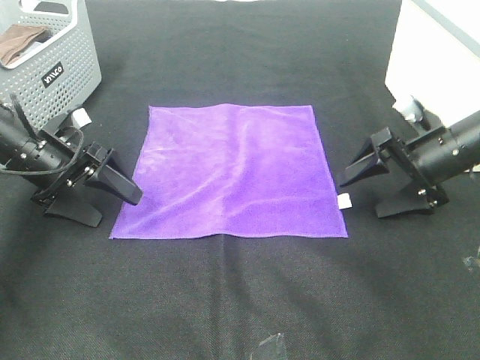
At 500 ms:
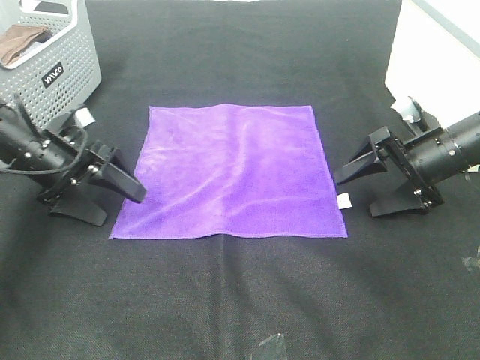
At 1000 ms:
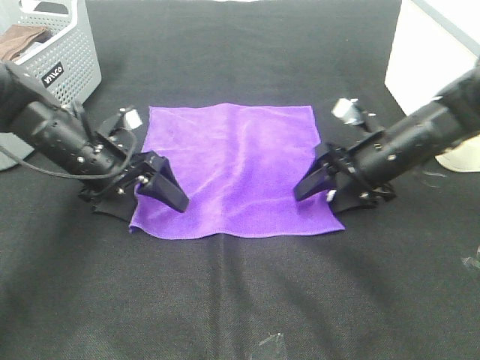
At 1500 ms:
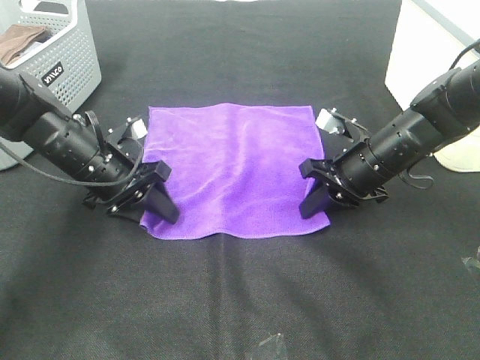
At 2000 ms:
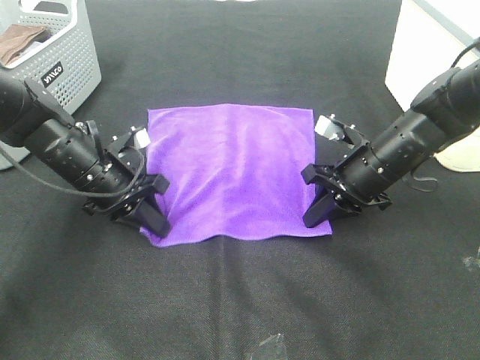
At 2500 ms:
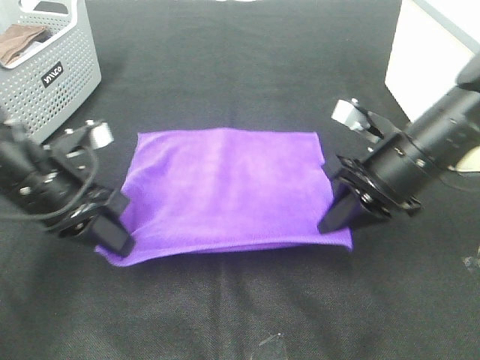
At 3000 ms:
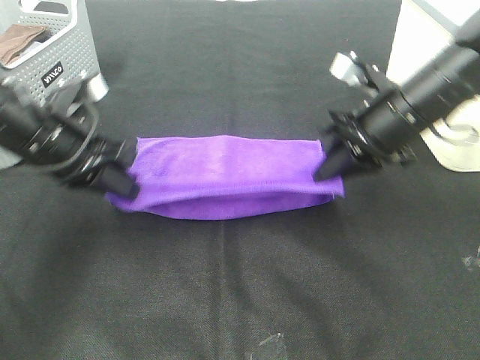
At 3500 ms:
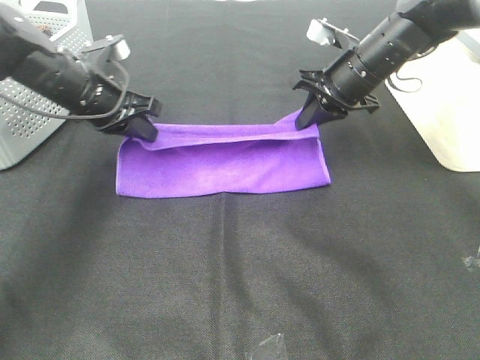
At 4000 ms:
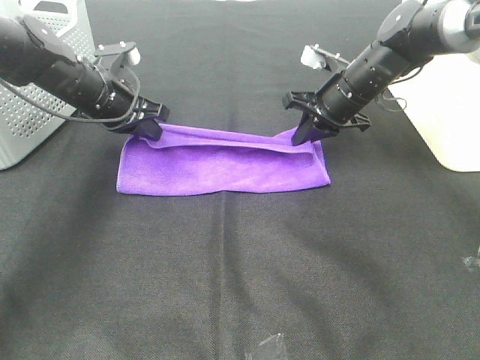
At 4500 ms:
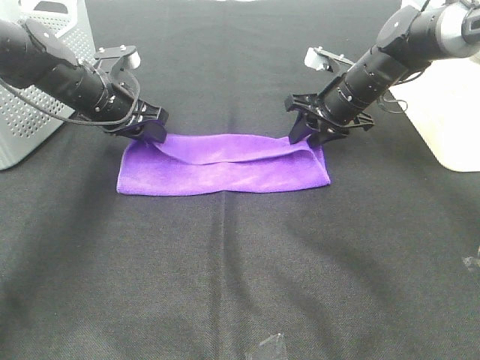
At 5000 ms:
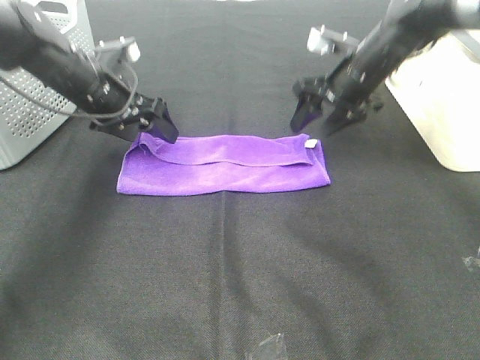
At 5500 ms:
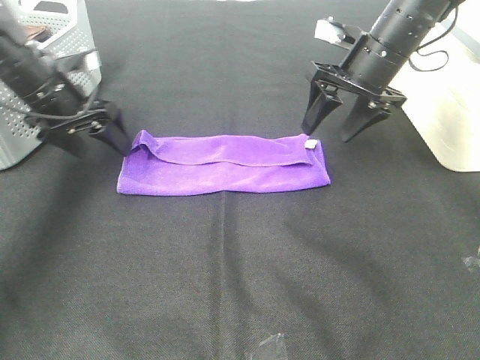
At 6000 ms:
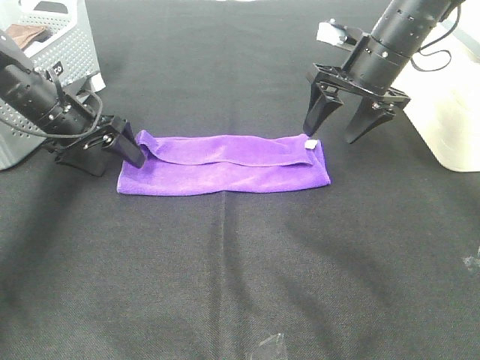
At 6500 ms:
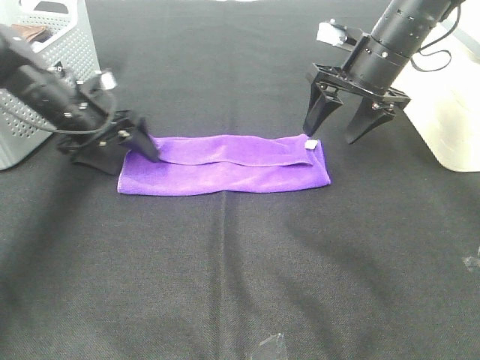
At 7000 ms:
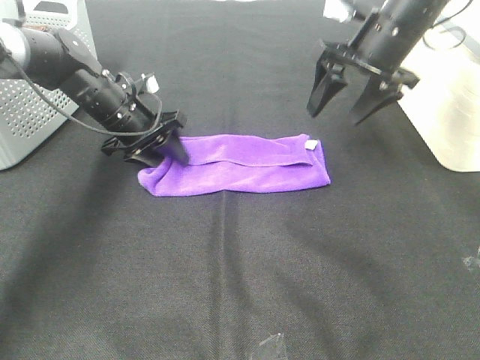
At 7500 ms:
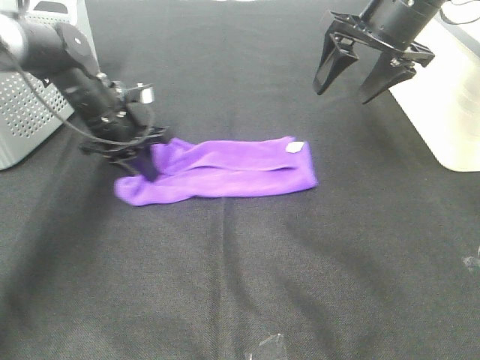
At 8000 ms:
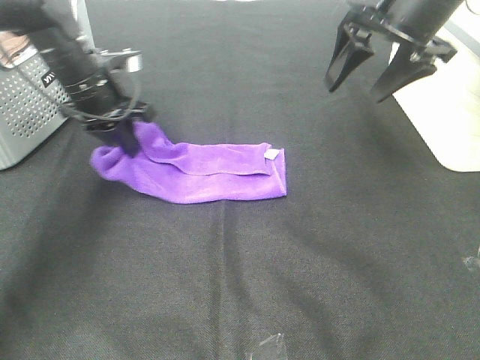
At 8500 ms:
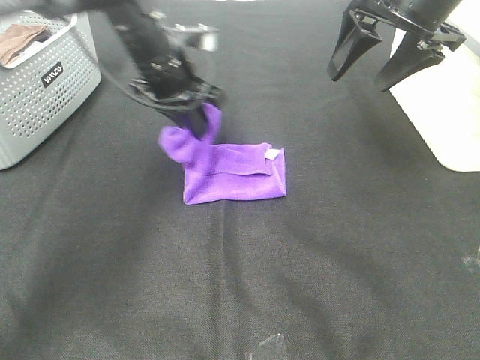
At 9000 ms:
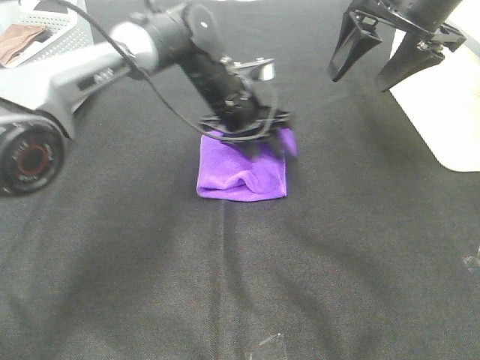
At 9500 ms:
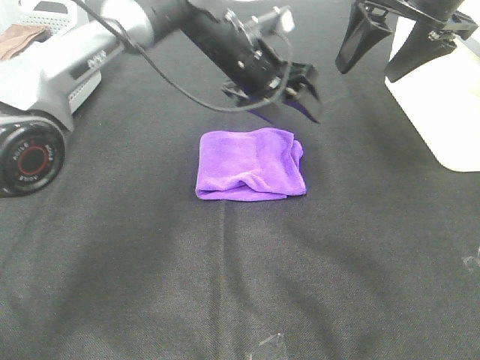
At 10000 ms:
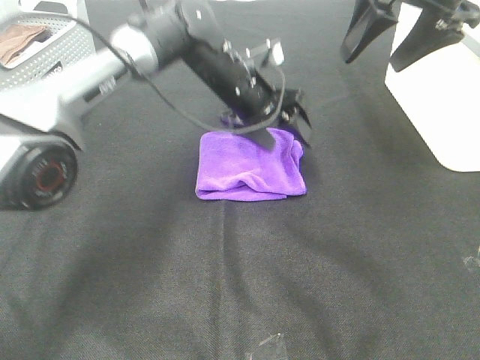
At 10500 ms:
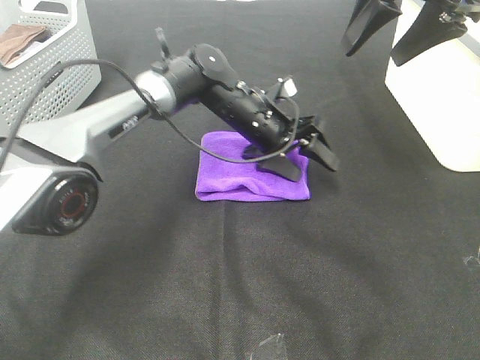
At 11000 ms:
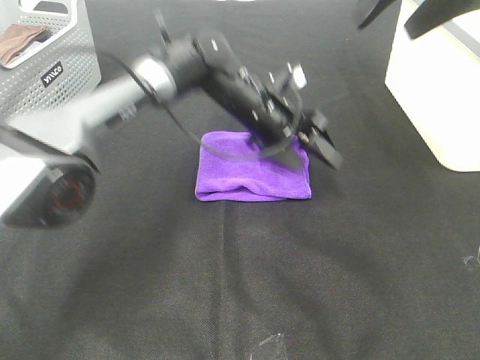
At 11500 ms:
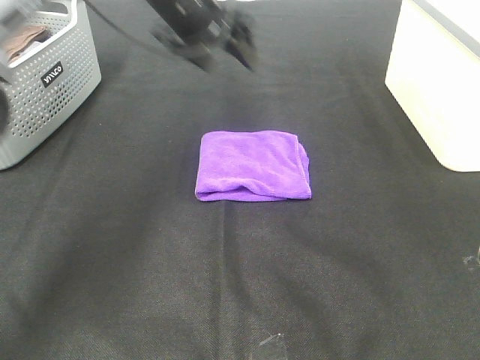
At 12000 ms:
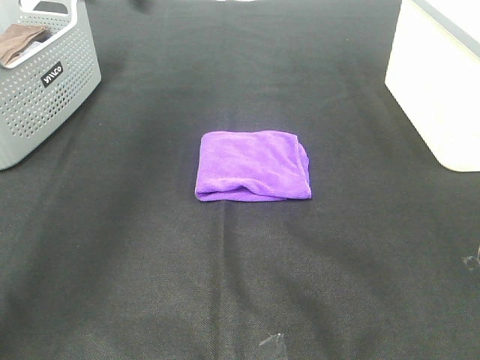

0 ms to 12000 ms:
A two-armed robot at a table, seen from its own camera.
Task of the whole recording: Fold towels.
Step, 2000 ms to 4000 ms: Left hand: fold the purple towel up.
Step, 2000 ms to 4000 ms: Right hand: fold the purple towel up.
Step, 4500 ms to 8500 ms: Left hand: fold the purple towel from left to right.
0 ms to 2000 ms: The left gripper is displaced to the right by some 5 cm, and closes its fingers; the right gripper goes roughly 10 cm to the left, and closes up.
2000 ms to 4000 ms: The two grippers go about 10 cm forward.
4000 ms to 6000 ms: The left gripper is displaced to the left by about 5 cm, and opens up, while the right gripper is displaced upward by some 5 cm, and opens.
6000 ms to 8000 ms: The right gripper travels upward by roughly 10 cm; the left gripper goes some 10 cm to the right and upward, and closes.
8000 ms to 10000 ms: The left gripper travels to the right by approximately 20 cm, and opens up.
10000 ms to 12000 ms: The right gripper shifts roughly 20 cm backward and upward. Meanwhile the left gripper goes some 30 cm upward and to the left.

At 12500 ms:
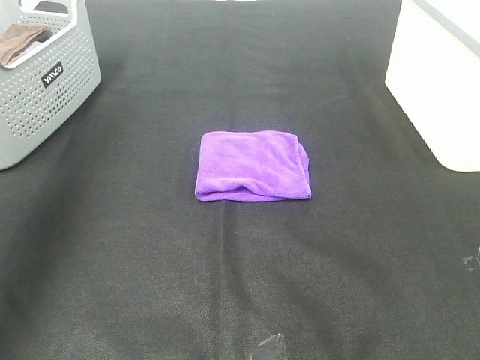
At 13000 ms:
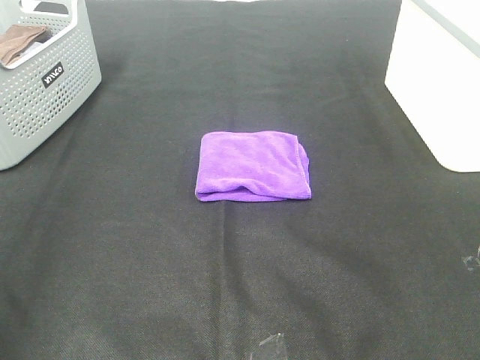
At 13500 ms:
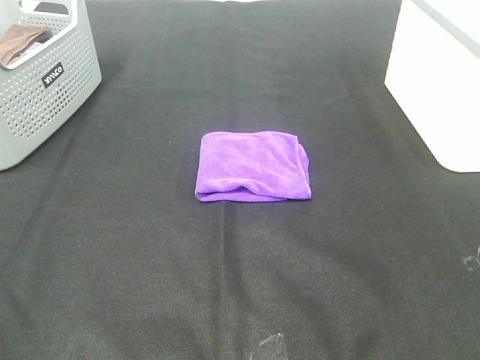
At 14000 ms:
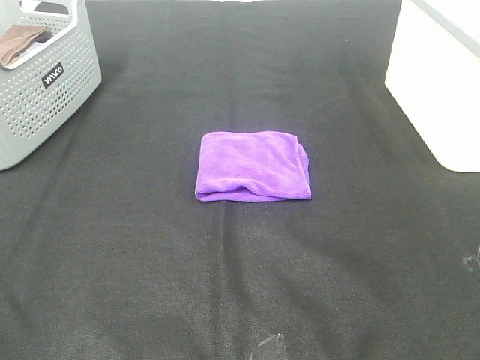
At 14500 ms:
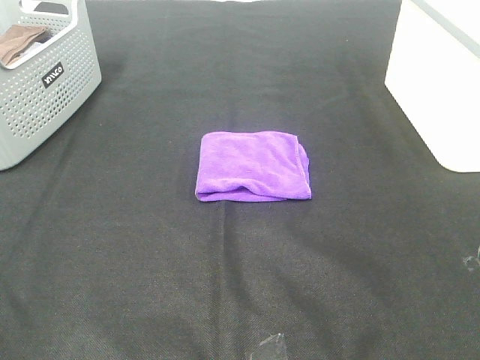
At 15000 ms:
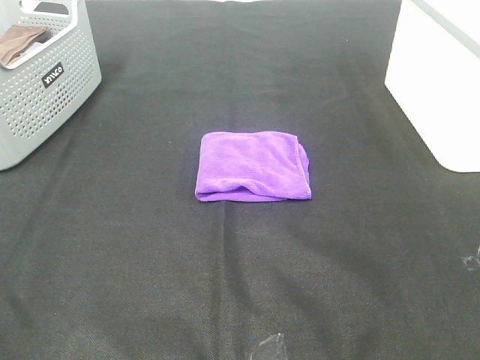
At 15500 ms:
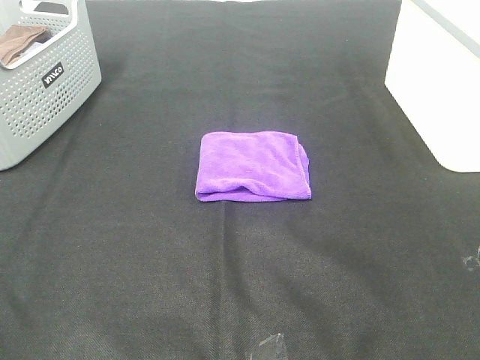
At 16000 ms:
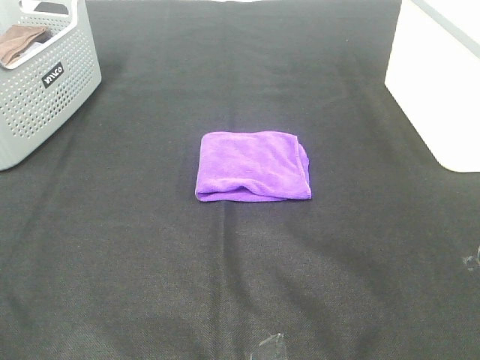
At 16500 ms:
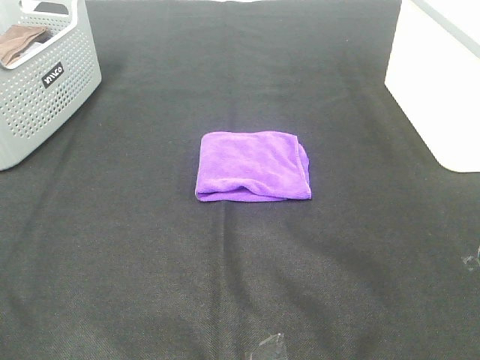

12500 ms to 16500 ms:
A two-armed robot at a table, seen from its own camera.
Task of the whole recording: Fold towels.
12500 ms to 14500 ms: The left gripper goes about 30 cm backward and downward.
